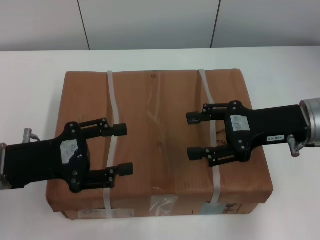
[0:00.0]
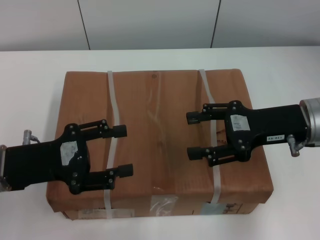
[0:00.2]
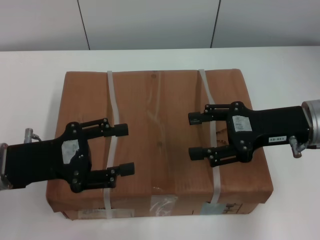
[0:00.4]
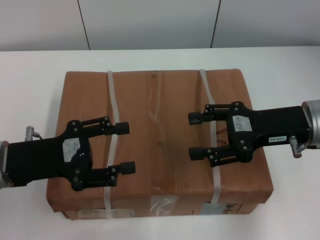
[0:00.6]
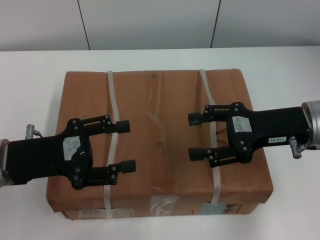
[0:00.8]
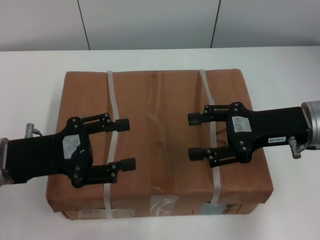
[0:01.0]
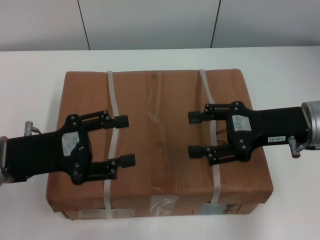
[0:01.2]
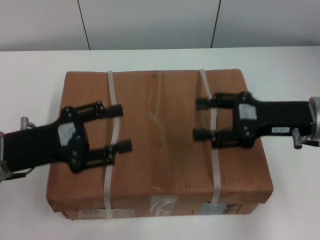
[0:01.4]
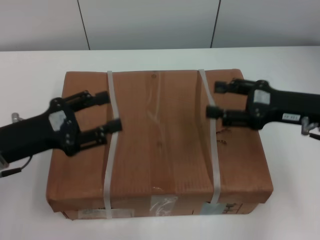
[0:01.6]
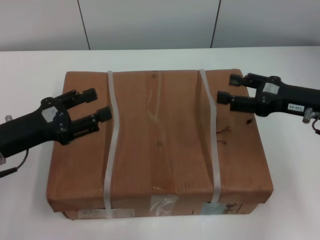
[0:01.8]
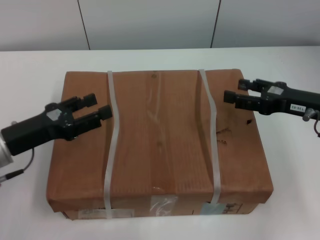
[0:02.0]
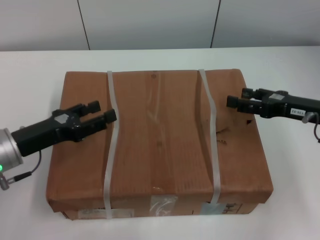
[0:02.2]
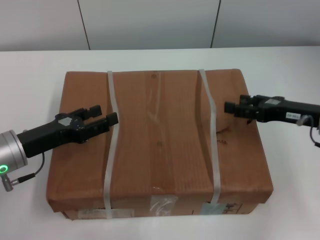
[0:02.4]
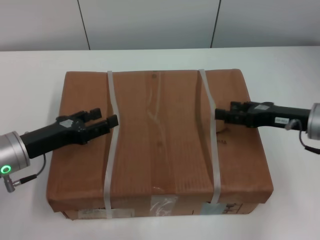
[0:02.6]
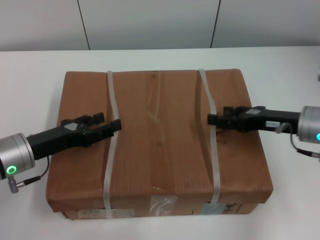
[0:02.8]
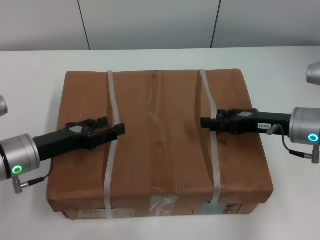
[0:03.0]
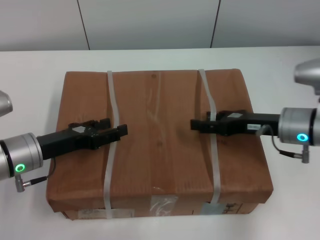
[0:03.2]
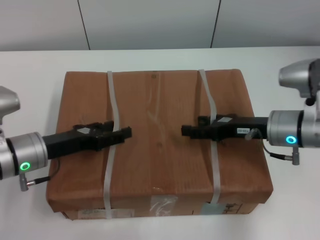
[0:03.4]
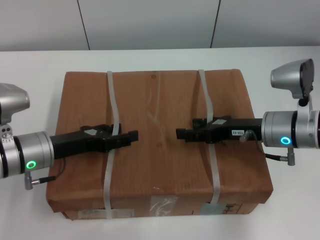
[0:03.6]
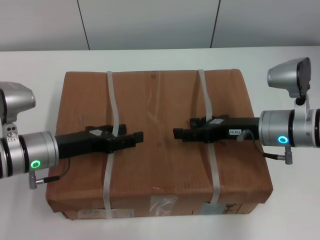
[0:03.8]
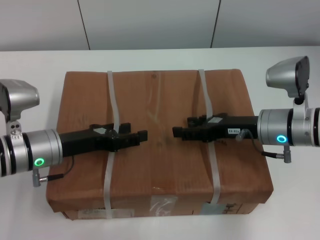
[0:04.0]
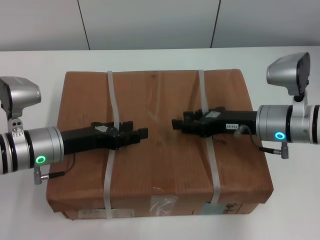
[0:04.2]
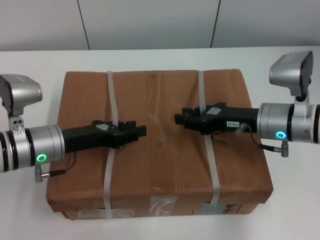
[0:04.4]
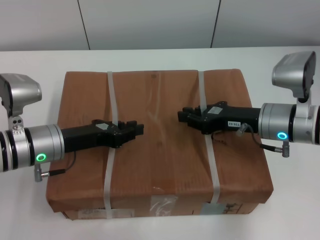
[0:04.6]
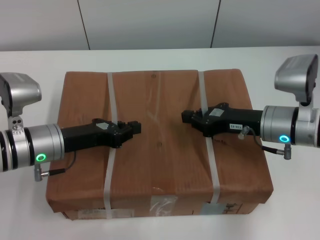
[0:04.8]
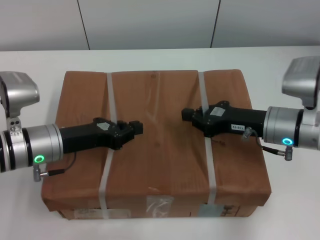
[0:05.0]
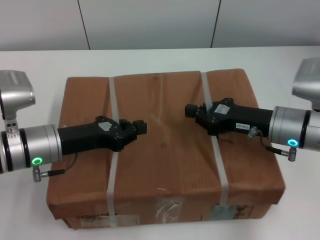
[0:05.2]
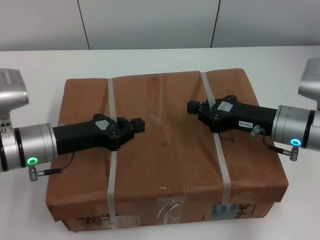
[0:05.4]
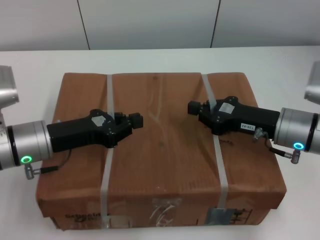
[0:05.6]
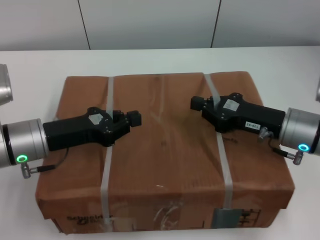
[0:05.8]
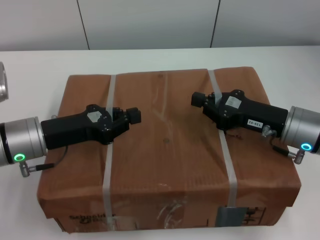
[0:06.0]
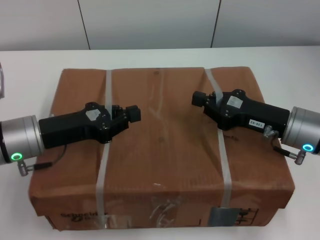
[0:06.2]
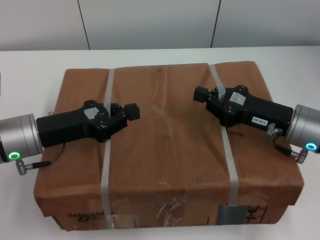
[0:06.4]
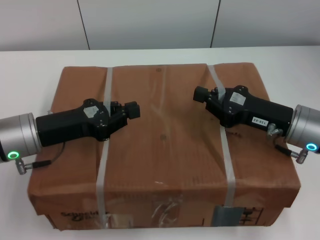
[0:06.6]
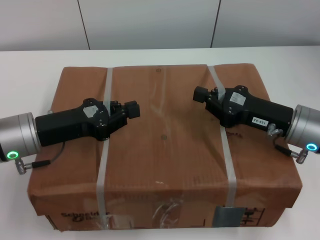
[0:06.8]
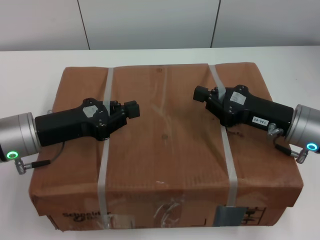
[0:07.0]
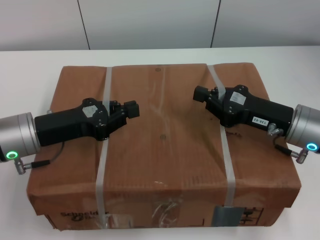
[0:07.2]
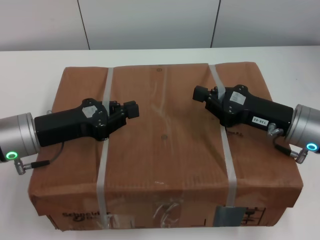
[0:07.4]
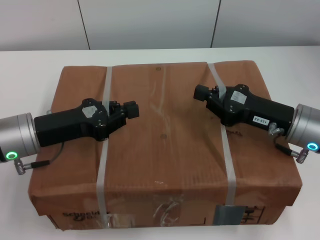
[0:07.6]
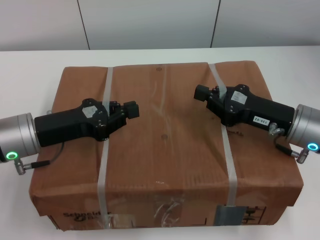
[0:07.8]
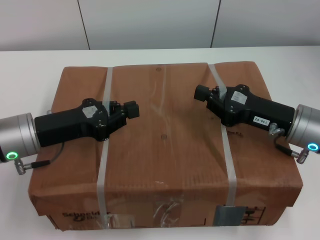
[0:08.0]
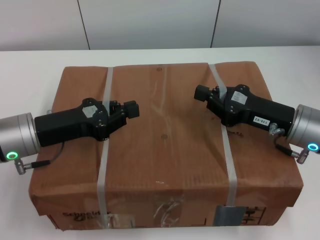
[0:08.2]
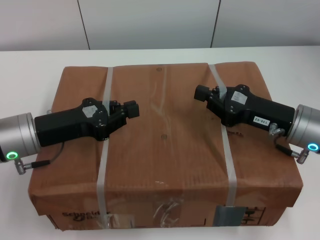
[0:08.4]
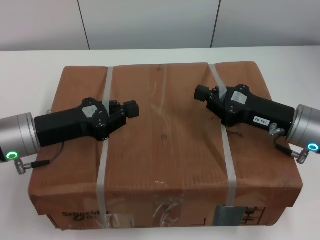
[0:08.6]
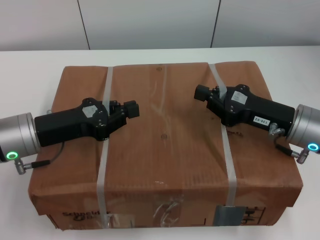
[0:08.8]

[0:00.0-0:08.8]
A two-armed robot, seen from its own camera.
Task of the whole recording: pick up the box from the table with both arms.
Step, 0:00.0 to 0:04.8: Grasp the bandage with left gripper.
Step, 0:00.0 to 0:04.8: Grasp the bandage with right gripper.
Step, 0:05.0 to 0:06.4: Lift the box with left gripper.
Step, 0:05.0 to 0:06.4: Lift the box with right gripper.
0:00.0 to 0:01.4: The grippers stay close to where they were, moving slightly.
0:01.4 to 0:03.0: The grippers both shift downward by about 5 cm.
0:03.0 to 0:04.4: The right gripper closes.
0:04.4 to 0:05.8: The left gripper closes up, while the right gripper closes its fingers.
0:05.8 to 0:07.4: The grippers stay close to where they were, moving slightly.
0:07.4 to 0:08.8: Both grippers stay about where they are.
